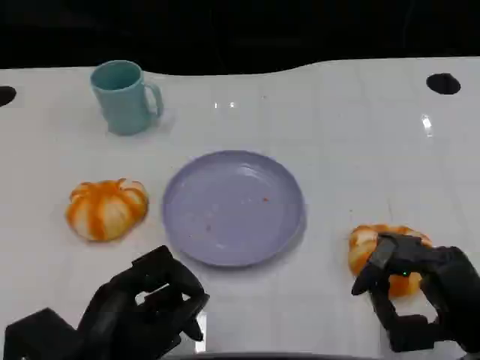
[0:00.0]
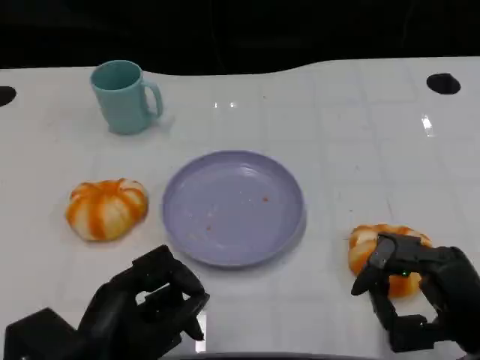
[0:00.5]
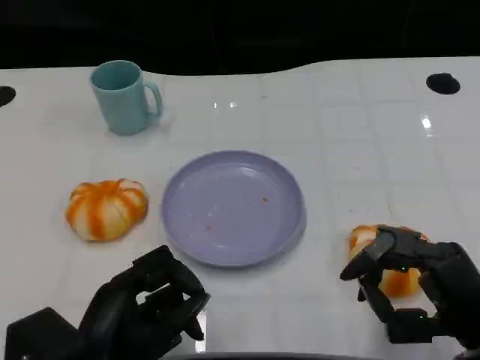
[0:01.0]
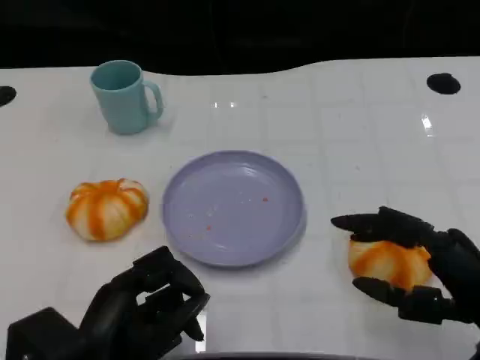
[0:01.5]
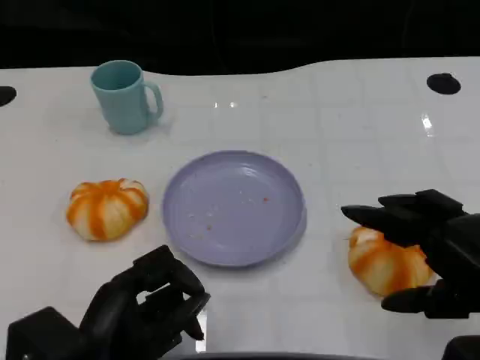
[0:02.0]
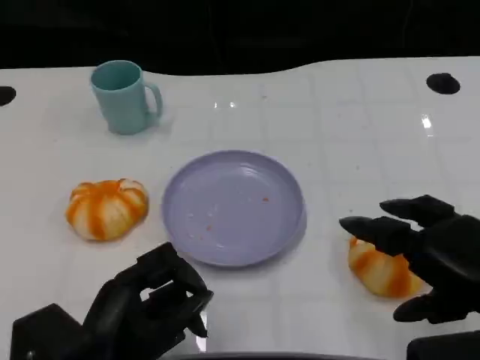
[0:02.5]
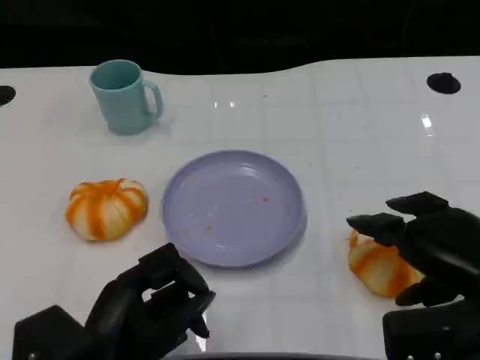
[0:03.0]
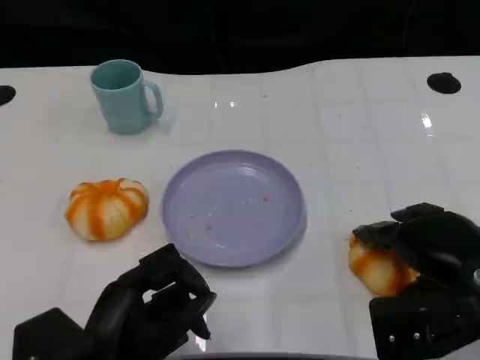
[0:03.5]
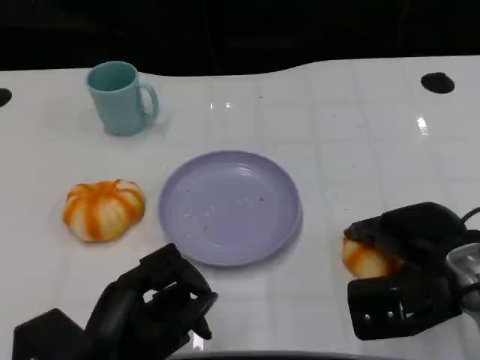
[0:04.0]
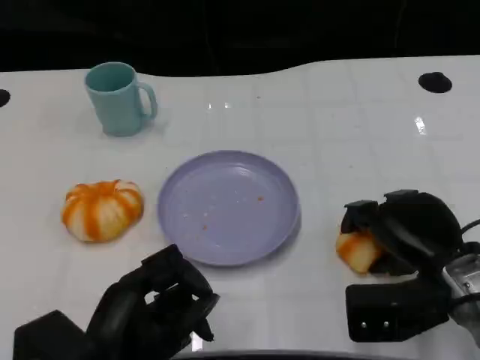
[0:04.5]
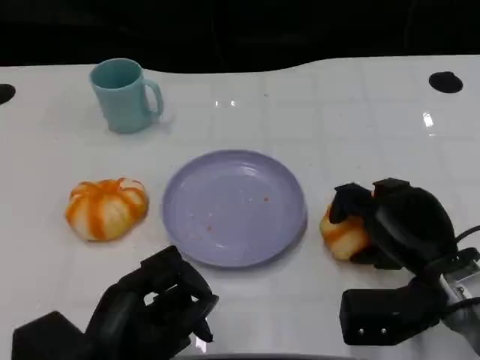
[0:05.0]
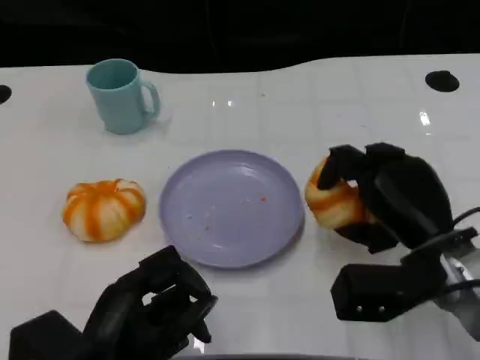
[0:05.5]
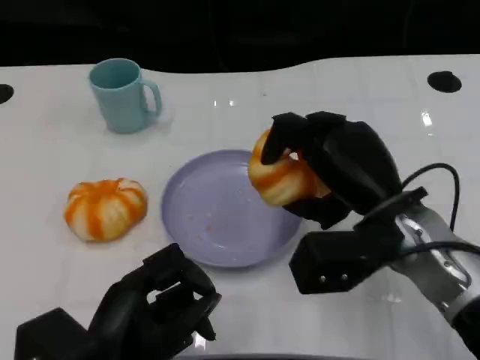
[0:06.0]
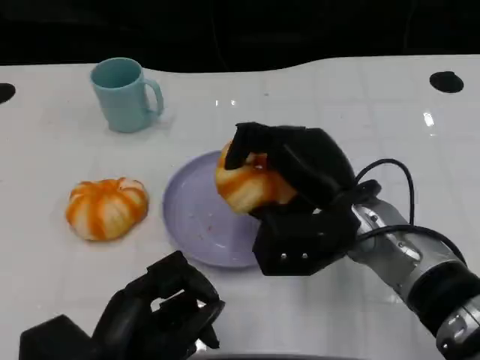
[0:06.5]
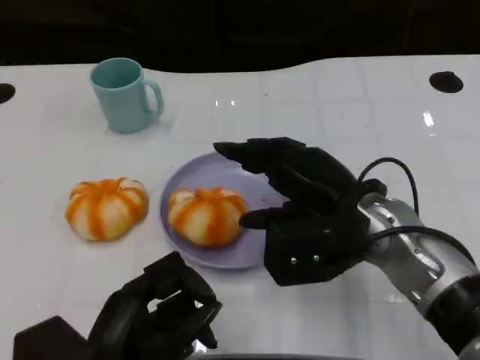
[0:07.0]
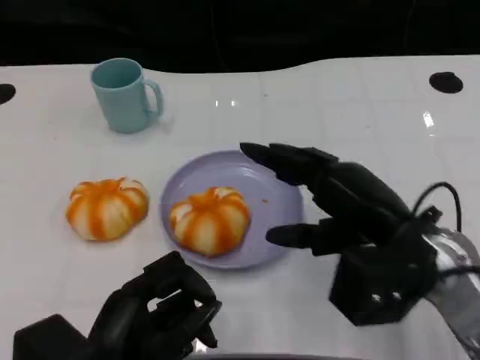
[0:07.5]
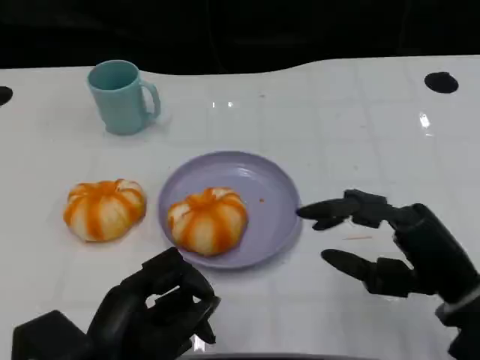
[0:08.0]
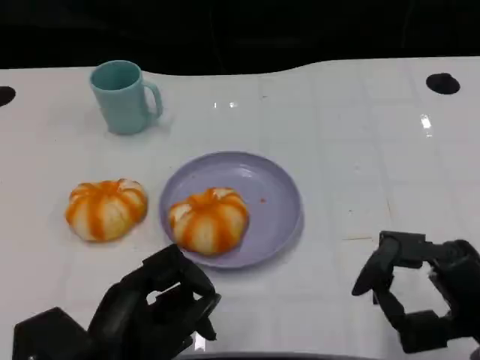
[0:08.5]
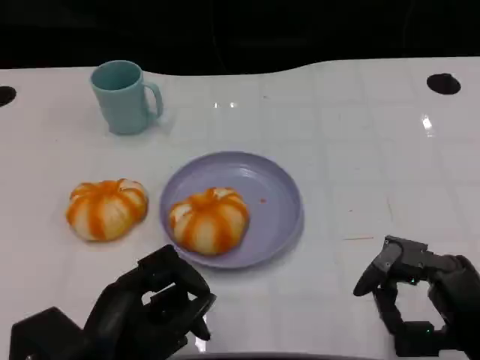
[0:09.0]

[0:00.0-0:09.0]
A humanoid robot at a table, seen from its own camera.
Task of the whole recording: Grasp the bread from the table and place it into the plate.
0:00.0 to 0:02.0: The right hand goes roughly 5 cm upward.
0:02.0 to 0:04.5: The right hand shifts roughly 10 cm forward and downward.
0:04.5 to 0:07.0: The right hand is displaced to the left and upward by some 10 cm.
0:07.0 to 0:09.0: The right hand moves backward, to the right and downward, approximately 20 cm.

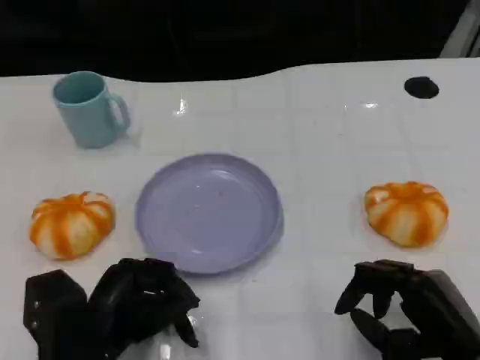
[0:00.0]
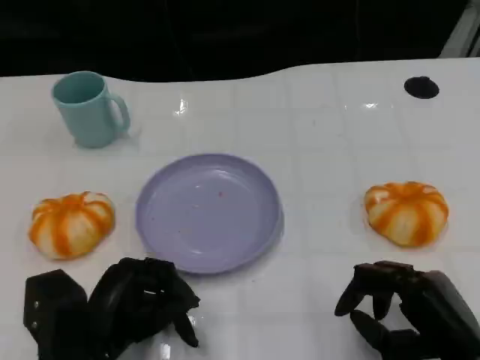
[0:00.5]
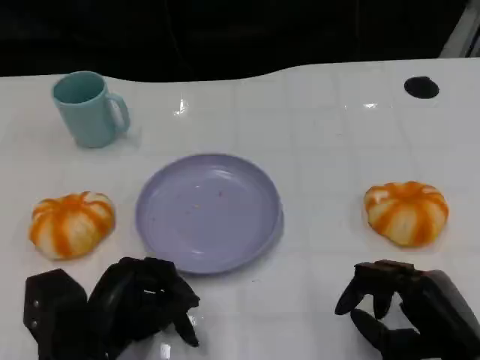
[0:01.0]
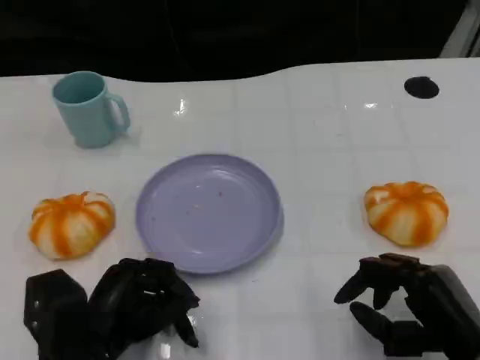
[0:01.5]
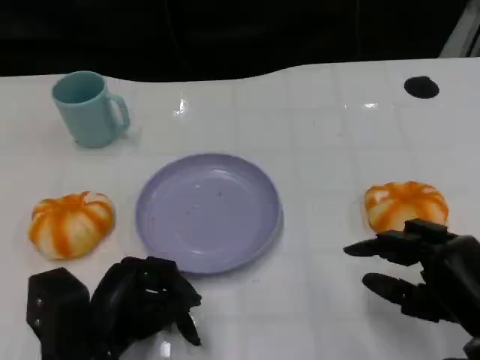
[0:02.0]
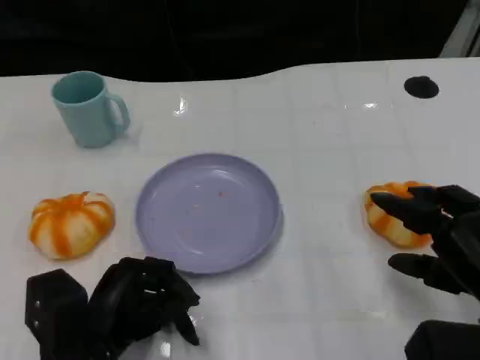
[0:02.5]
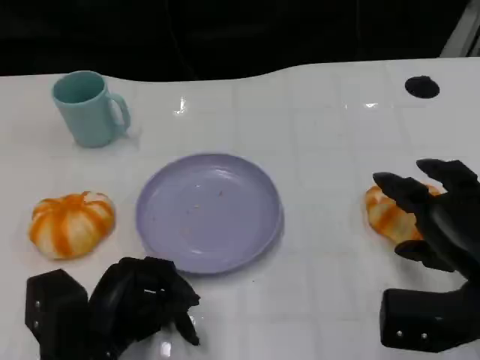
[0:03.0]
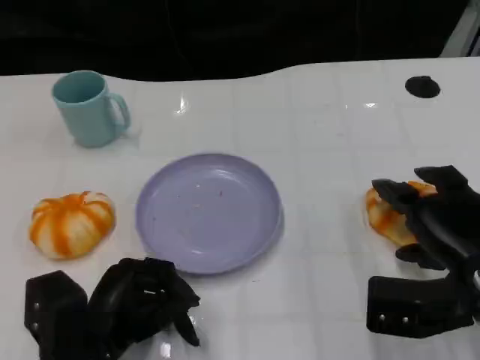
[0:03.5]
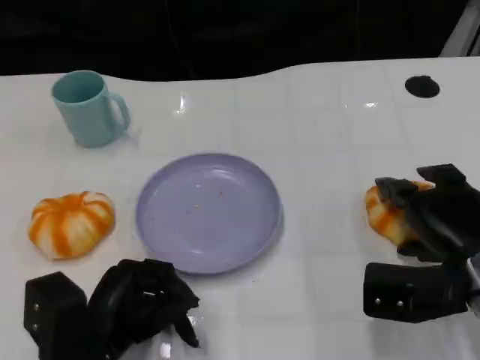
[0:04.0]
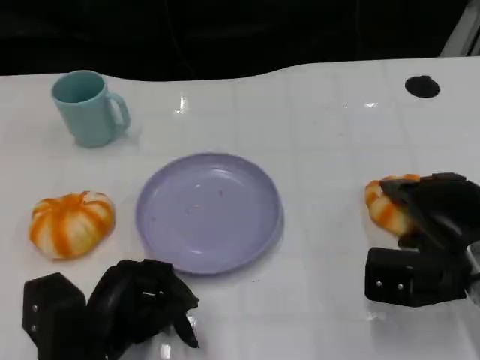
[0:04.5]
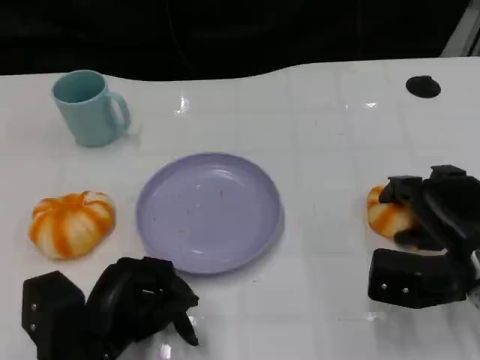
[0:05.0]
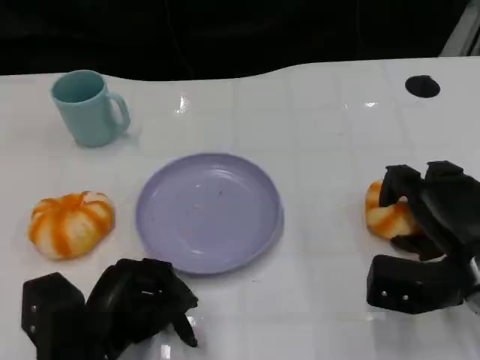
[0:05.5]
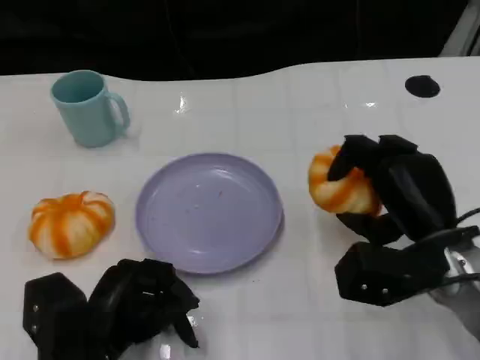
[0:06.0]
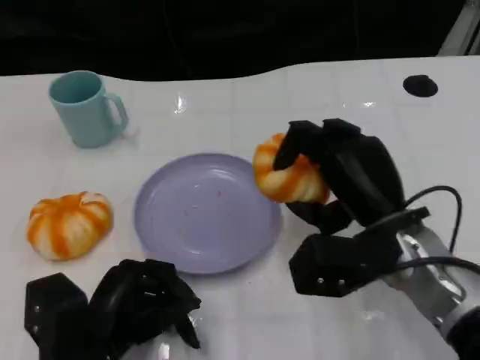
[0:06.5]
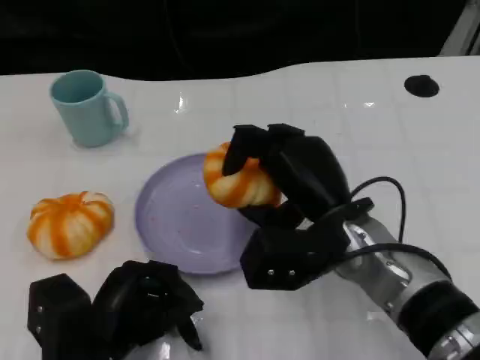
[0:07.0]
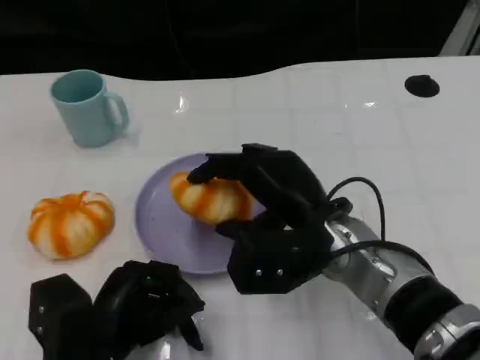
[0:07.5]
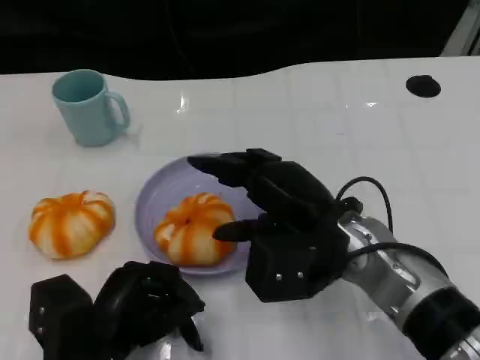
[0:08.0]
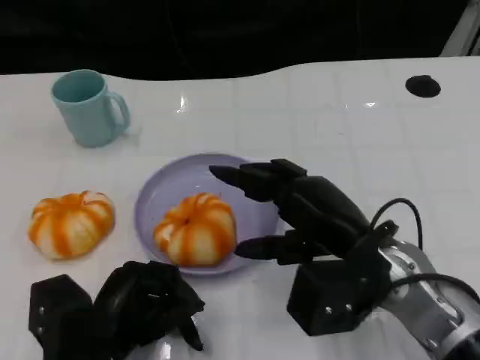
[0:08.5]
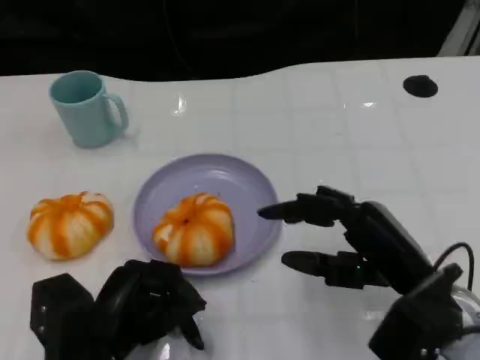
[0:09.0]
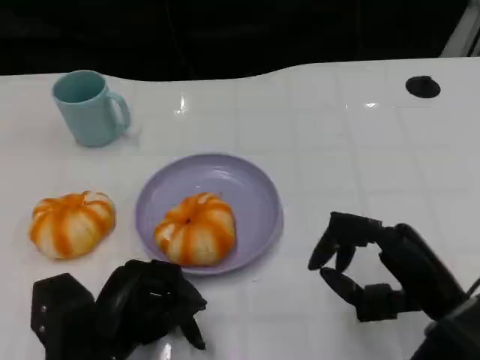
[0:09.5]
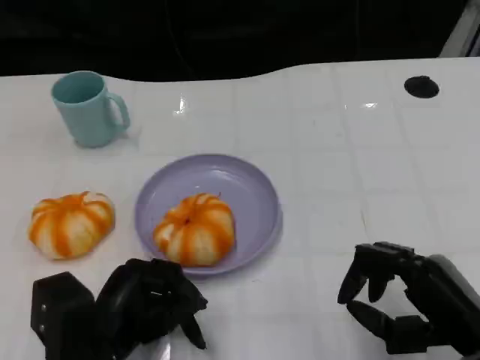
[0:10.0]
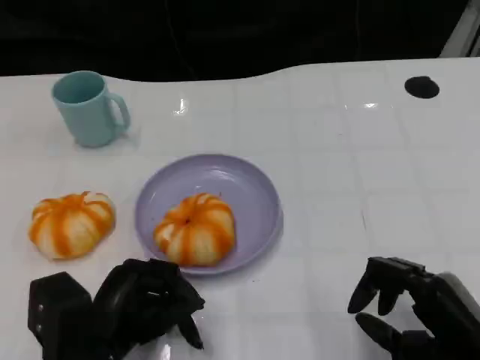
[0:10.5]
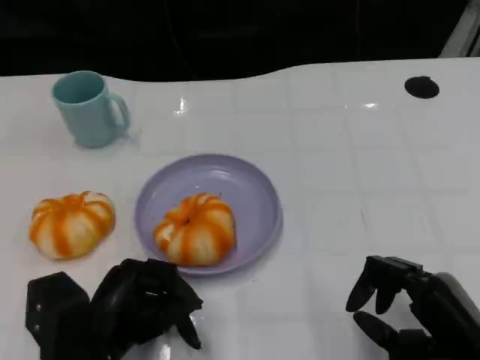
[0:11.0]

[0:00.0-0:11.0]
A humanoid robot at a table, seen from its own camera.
Task of the whole recording: Grasp the bread from the table and place it into the plate.
0:00.0 to 0:02.0: There are only small adjustments of the hands.
0:02.0 to 0:03.5: The right hand goes approximately 5 cm forward.
0:03.5 to 0:05.5: There are only small adjustments of the hands.
0:05.5 to 0:07.5: The right hand travels to the left by about 15 cm.
0:07.5 to 0:09.0: The right hand shifts some 10 cm to the right and backward.
0:09.0 to 0:11.0: The right hand travels backward by about 5 cm.
